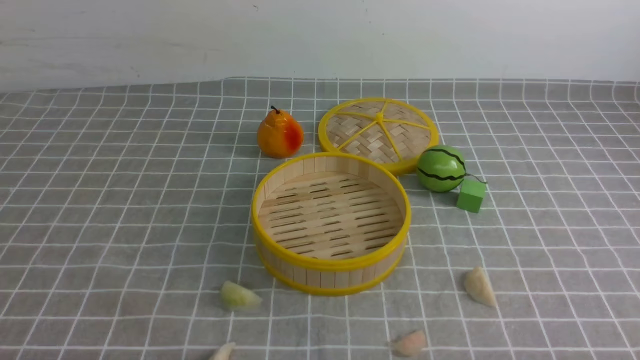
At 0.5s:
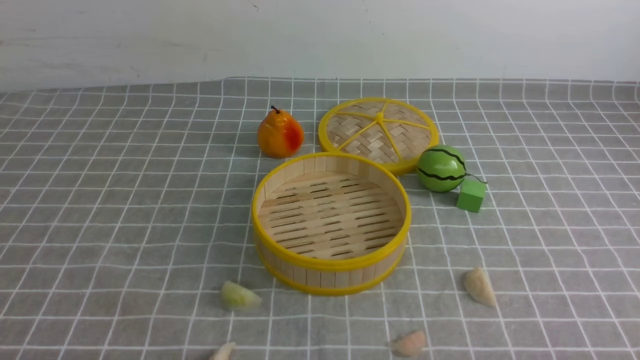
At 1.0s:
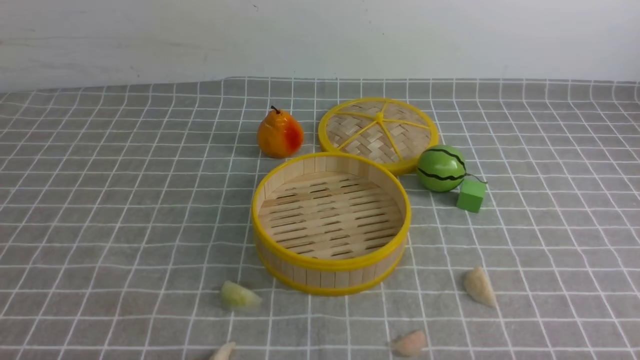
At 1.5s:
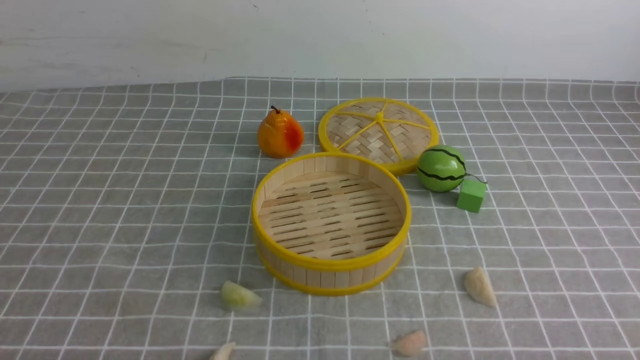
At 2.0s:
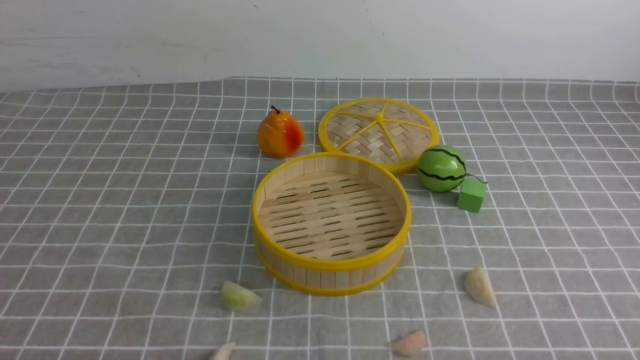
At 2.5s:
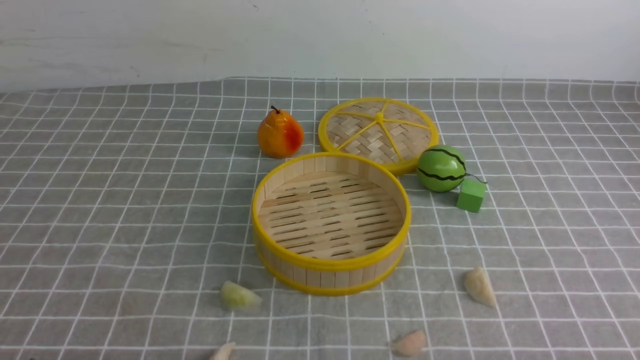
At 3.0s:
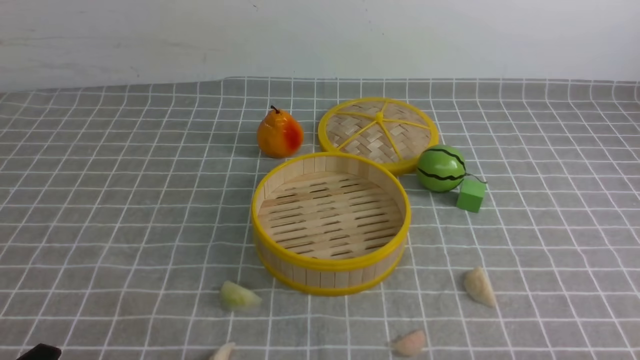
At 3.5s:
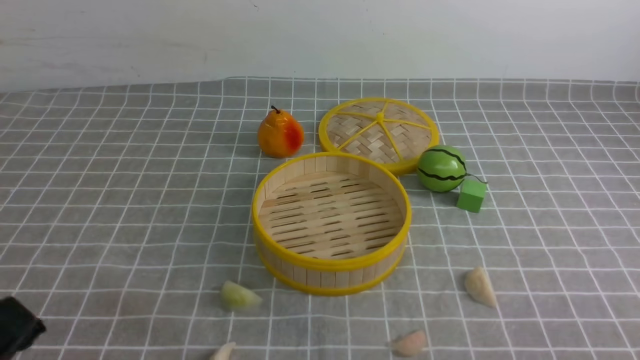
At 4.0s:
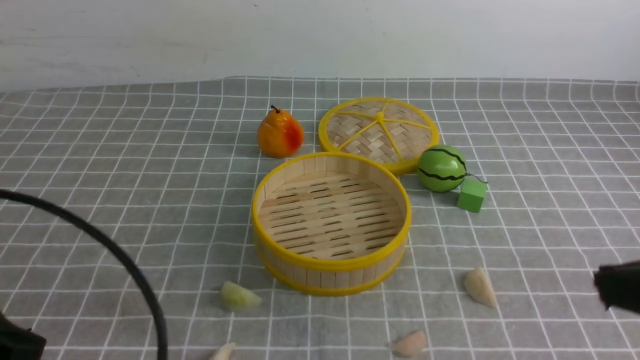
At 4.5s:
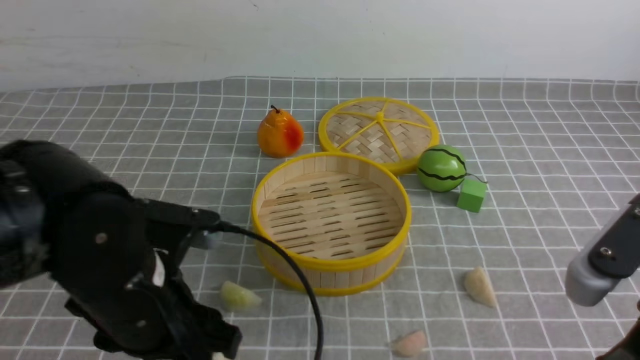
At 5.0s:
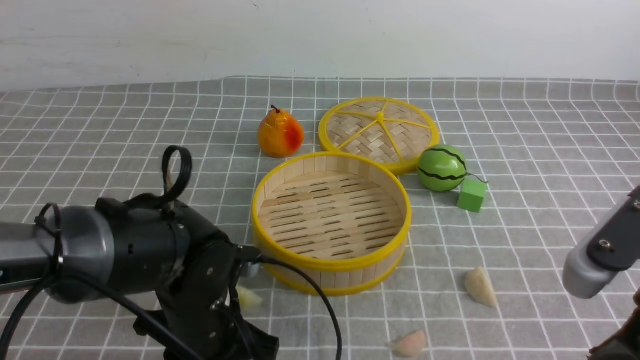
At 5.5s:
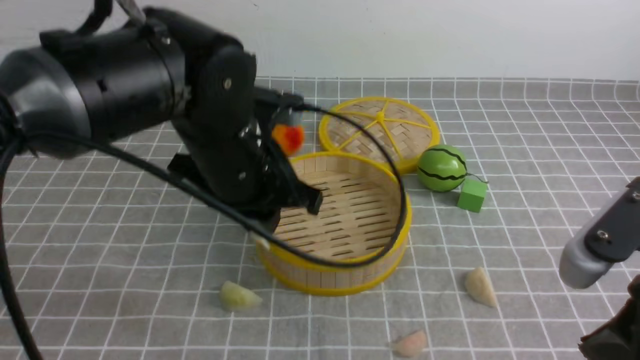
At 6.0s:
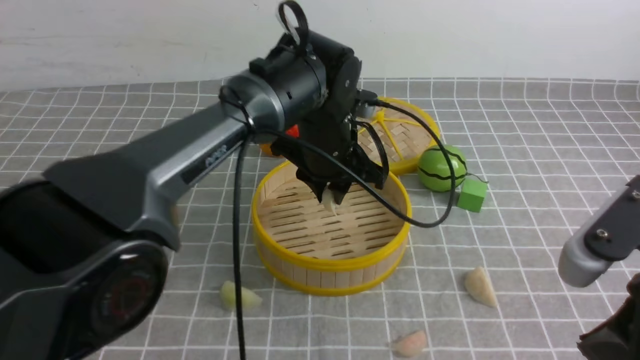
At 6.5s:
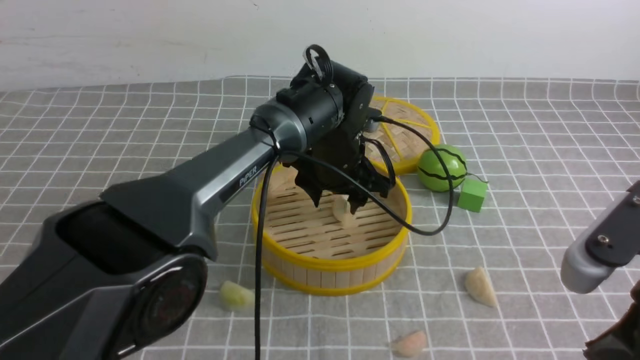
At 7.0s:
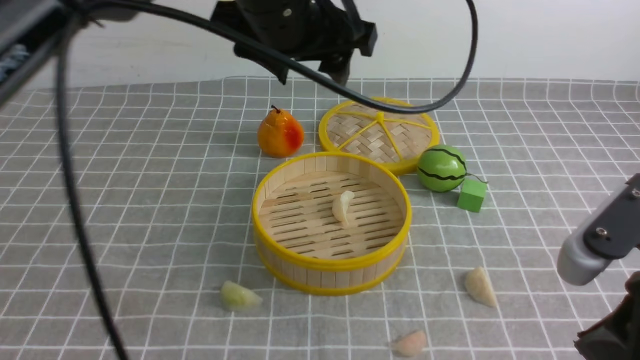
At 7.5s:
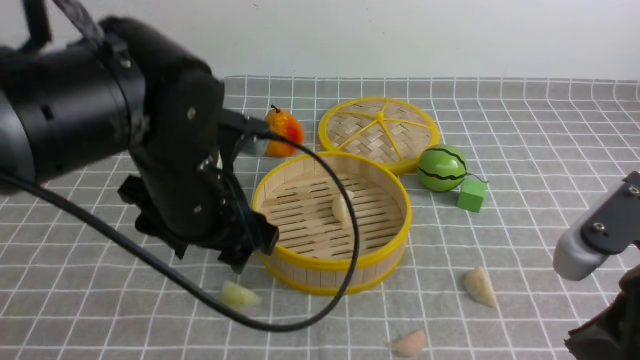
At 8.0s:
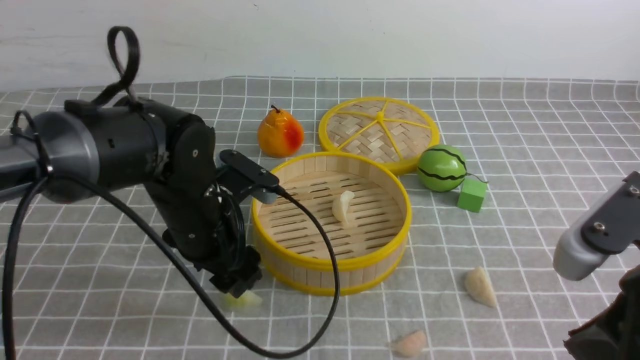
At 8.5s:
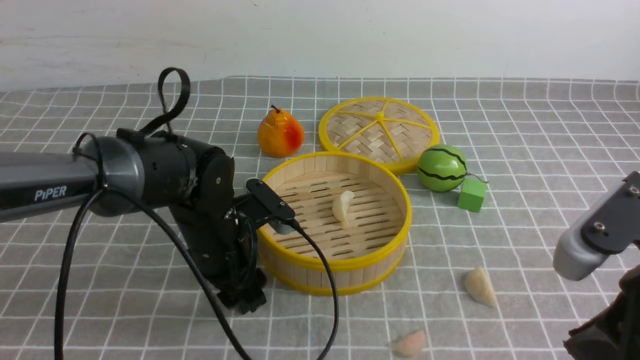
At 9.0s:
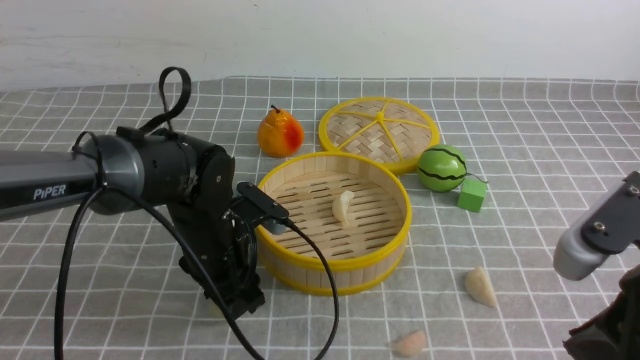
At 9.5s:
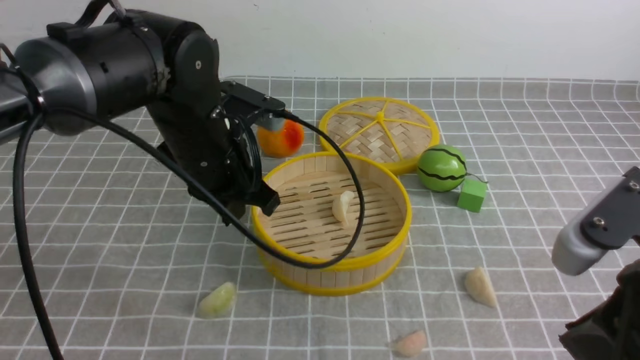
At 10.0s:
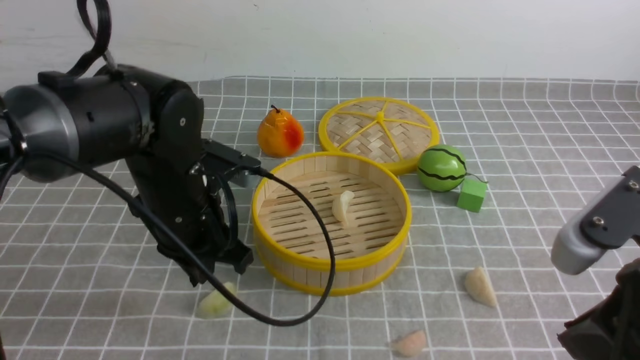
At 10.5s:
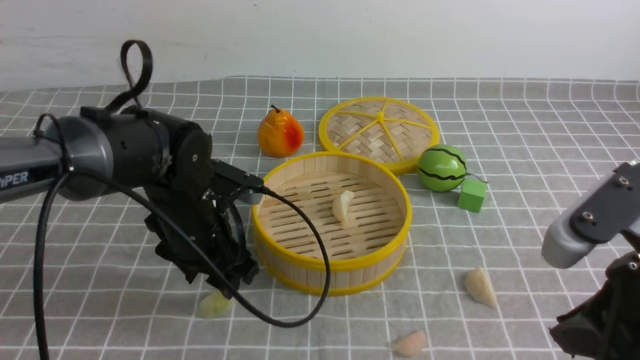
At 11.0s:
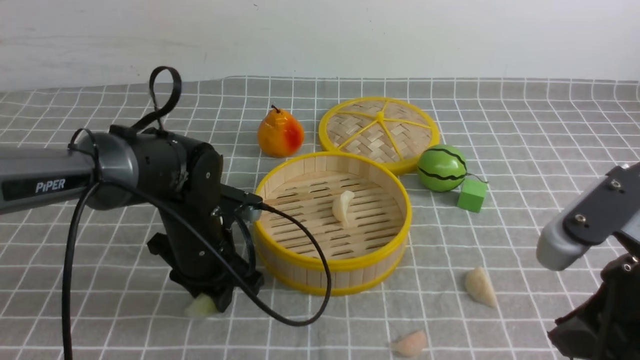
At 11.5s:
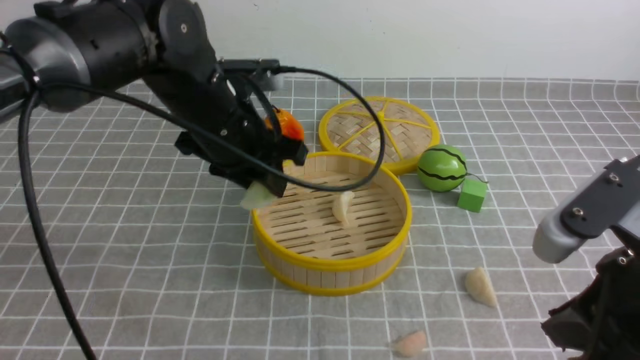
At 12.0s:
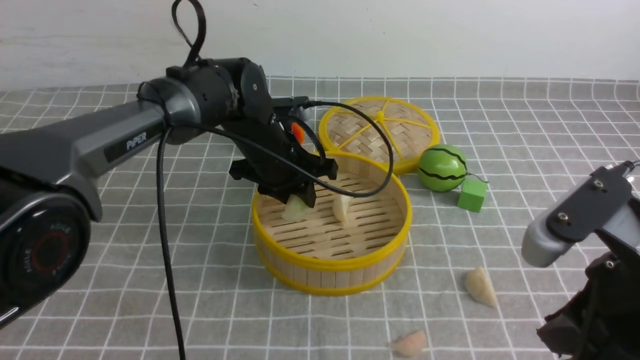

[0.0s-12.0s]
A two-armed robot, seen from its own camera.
Task of the whole recording: put the dumplings into the steamer on the table with the grey tablecloth.
Step, 0.0s to 5.0s: use the left arm to grab a dumpling.
Step, 5.5s to 6.5s: use the left arm to put the dumpling into the steamer.
Step, 7.0s to 11.0s: use the left arm to grab a dumpling.
0.0s to 2.0s: The two grippers keep their place.
2.0s to 4.0s: The left gripper shifts some 15 cm upward, and closes up, while the right gripper heads upward and forward, covering about 20 cm, and closes its fingers.
4.0s to 6.0s: The left gripper moves forward and to the right, approximately 40 cm, and opens and closes again.
6.0s to 8.0s: The left gripper heads to the left and backward, covering roughly 15 cm, reaches about 15 cm upward, then returns, and opens.
8.0s to 10.0s: The left gripper moves approximately 5 cm upward and comes back, and closes up.
10.0s to 12.0s: The left gripper moves forward and to the right, roughly 15 cm, and opens its fingers.

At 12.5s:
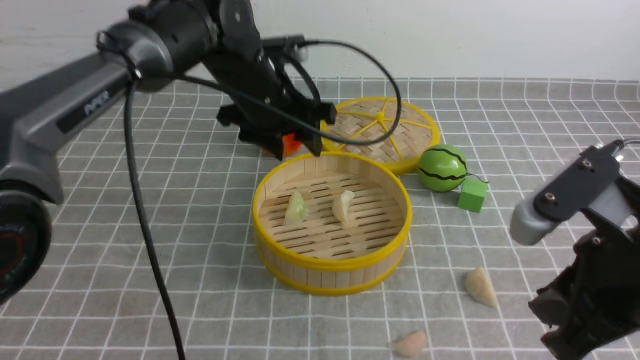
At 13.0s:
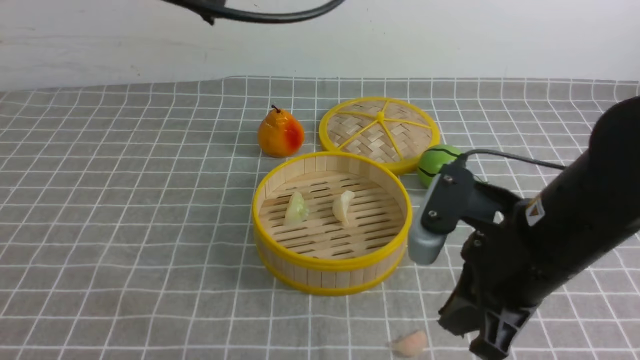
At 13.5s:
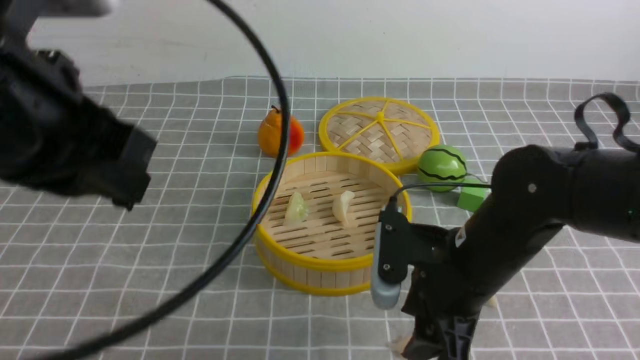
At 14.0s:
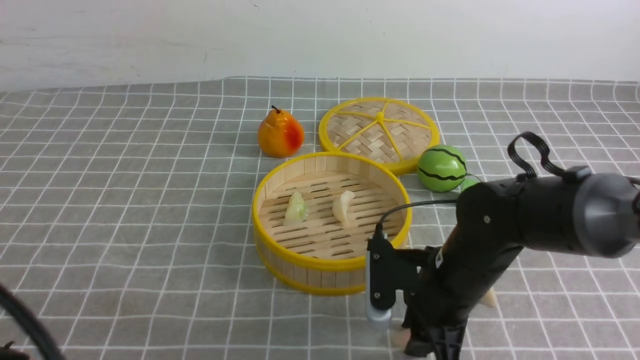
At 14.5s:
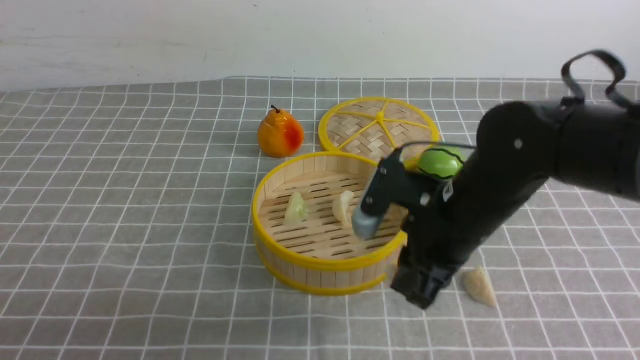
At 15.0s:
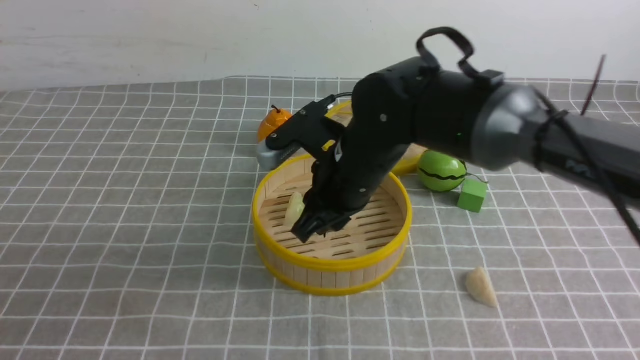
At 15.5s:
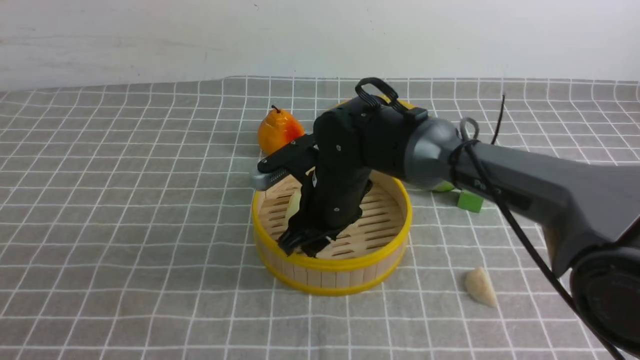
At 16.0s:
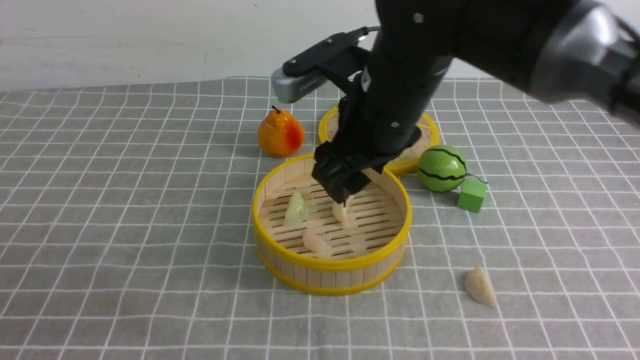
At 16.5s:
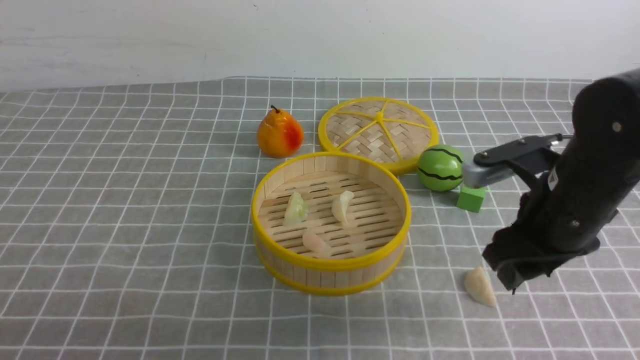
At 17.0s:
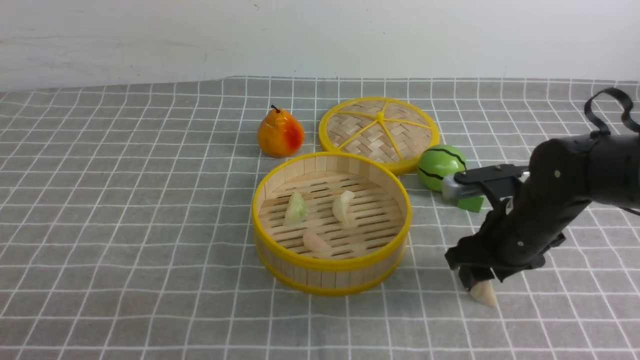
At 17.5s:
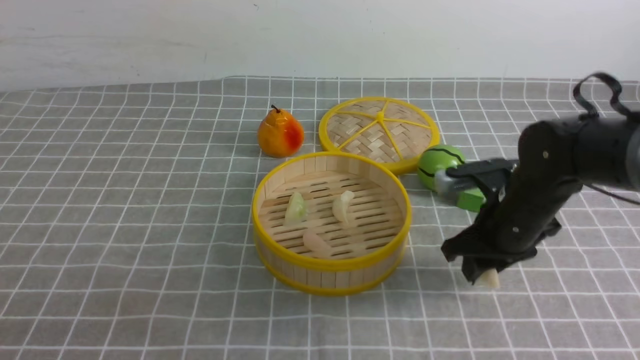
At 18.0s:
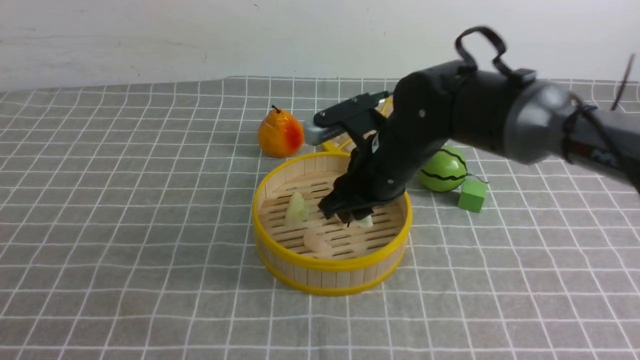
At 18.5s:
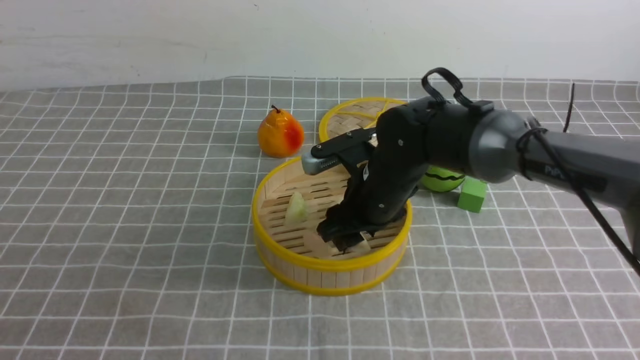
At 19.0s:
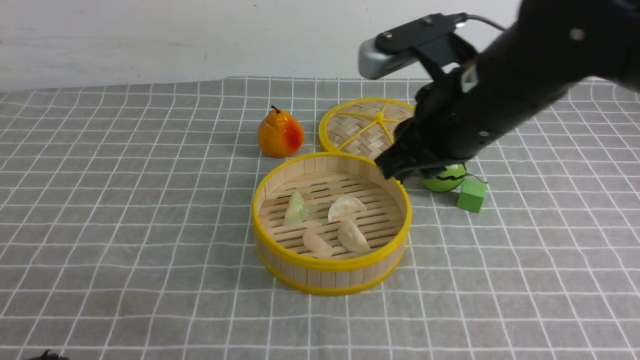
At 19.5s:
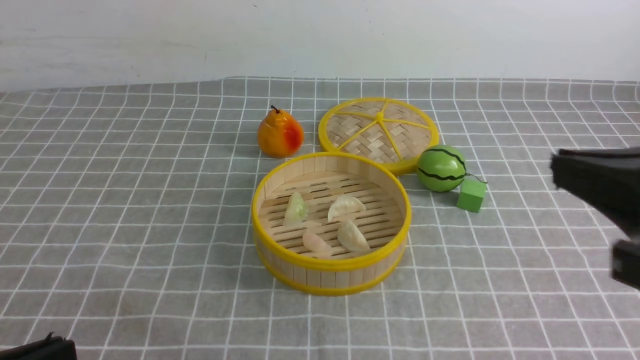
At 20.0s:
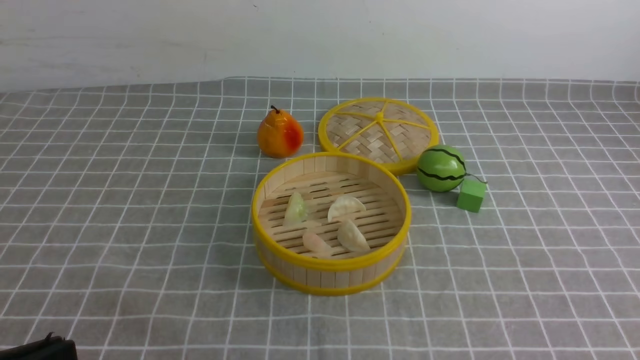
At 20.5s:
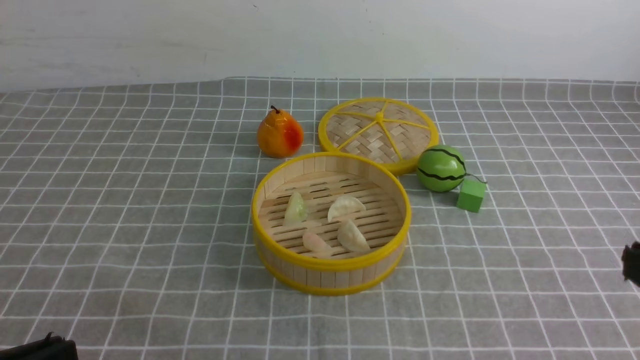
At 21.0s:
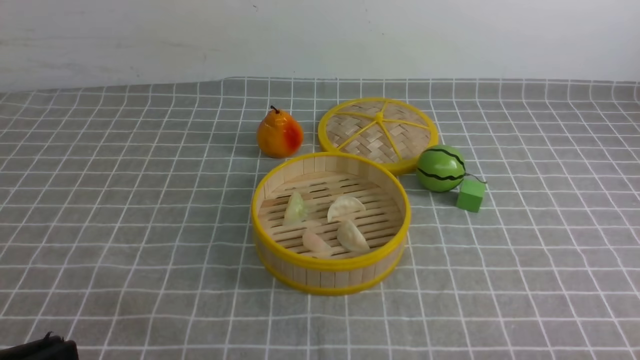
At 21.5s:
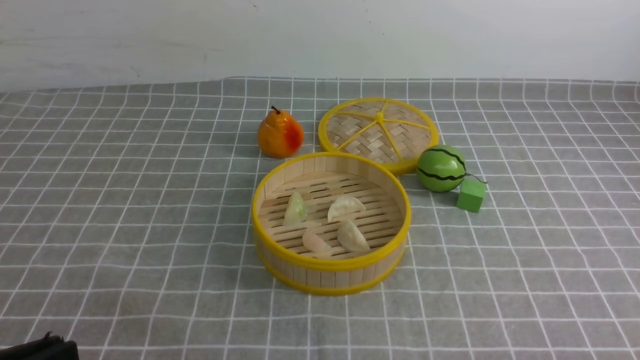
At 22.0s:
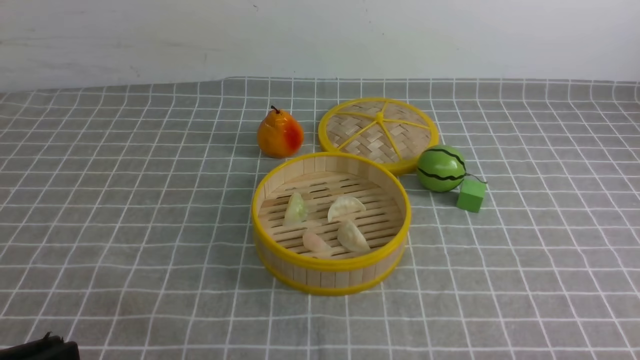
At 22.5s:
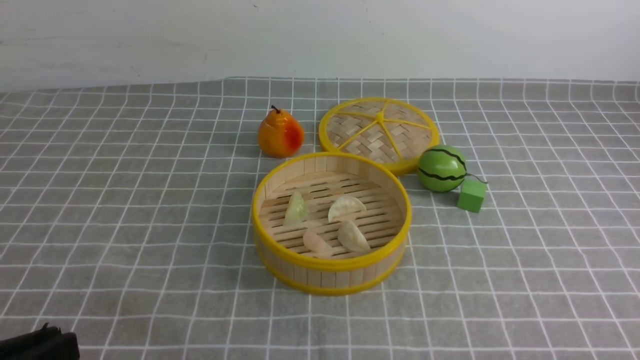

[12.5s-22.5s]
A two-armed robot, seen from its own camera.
Task of the whole recording: put the dumplings into the steamer on the table with the grey tablecloth.
Step, 12.5s to 14.0s: use the right arm to grab a dumpling.
Step, 14.5s to 15.5s: use the right arm to put the dumpling into the steamer.
Step, 16.0s to 17.5s: use the right arm to grab a dumpling.
Step, 18.0s to 18.5s: use the right arm to put the dumpling into the steamer.
12.5s to 14.5s: The right gripper moves forward, to the left and downward, some 15 cm, and opens and closes again, while the left gripper heads backward and to the left, covering approximately 40 cm, and closes.
14.5s to 16.5s: The right gripper moves to the right, some 10 cm, and opens up.
16.5s to 18.5s: The right gripper is displaced to the left and forward by roughly 15 cm.
18.5s to 20.5s: The right gripper goes roughly 35 cm backward and to the right, and closes. Meanwhile the left gripper goes about 10 cm downward.
